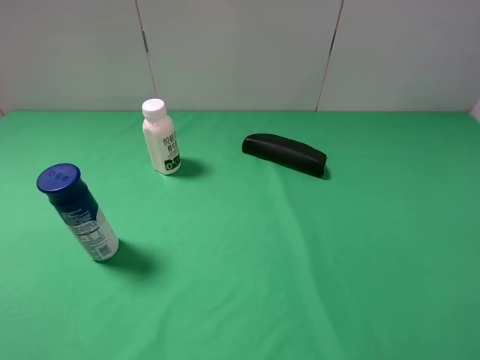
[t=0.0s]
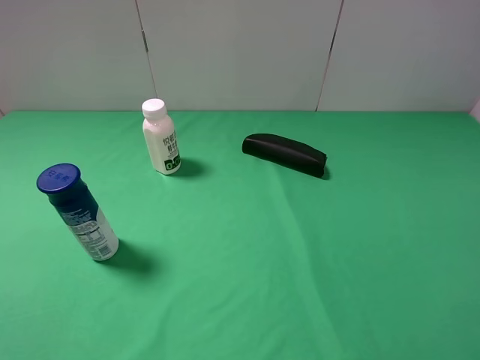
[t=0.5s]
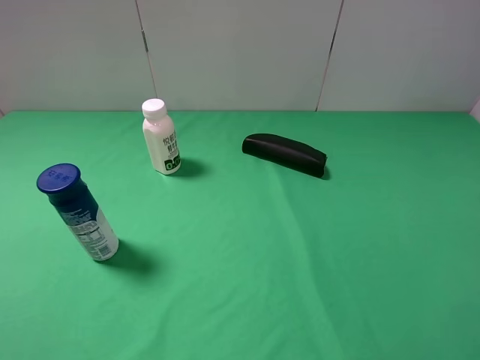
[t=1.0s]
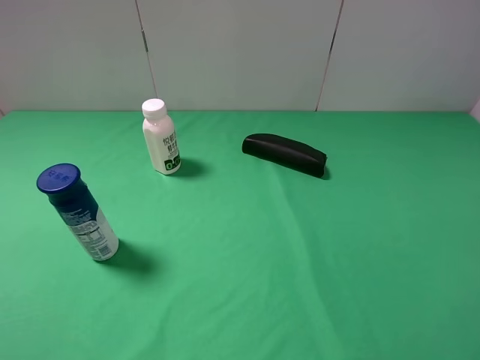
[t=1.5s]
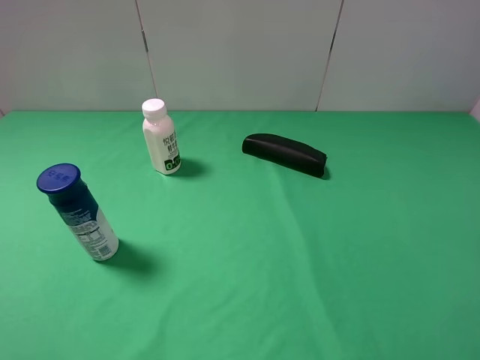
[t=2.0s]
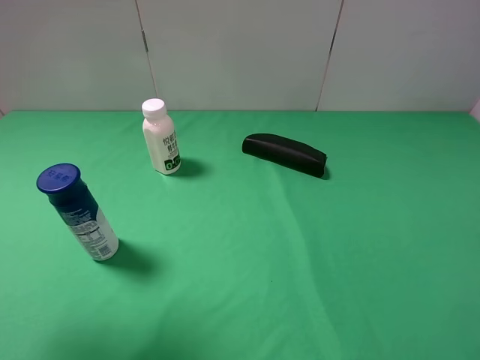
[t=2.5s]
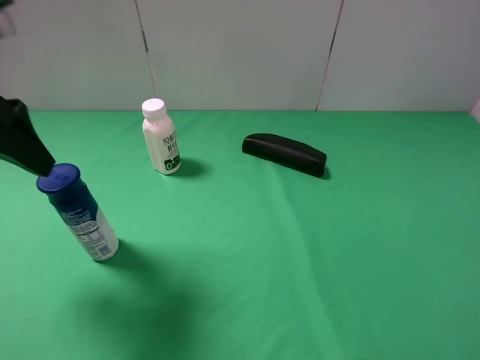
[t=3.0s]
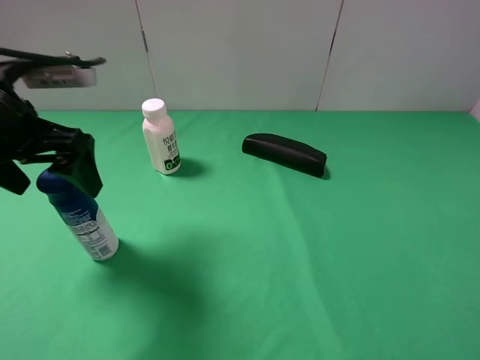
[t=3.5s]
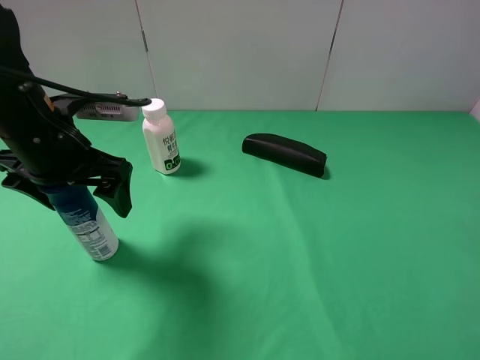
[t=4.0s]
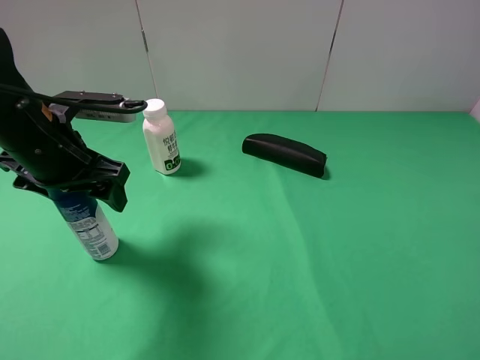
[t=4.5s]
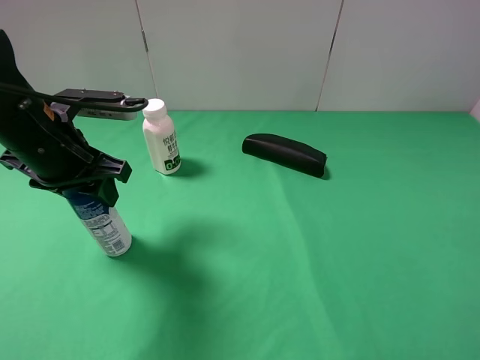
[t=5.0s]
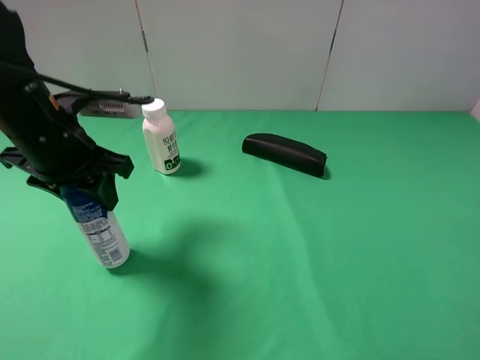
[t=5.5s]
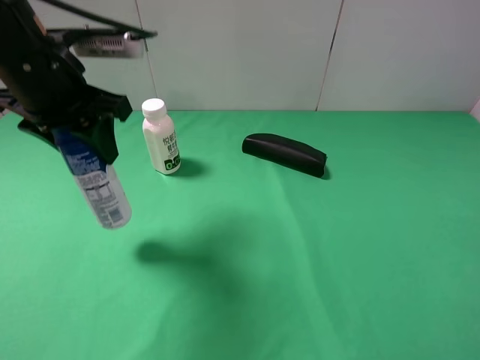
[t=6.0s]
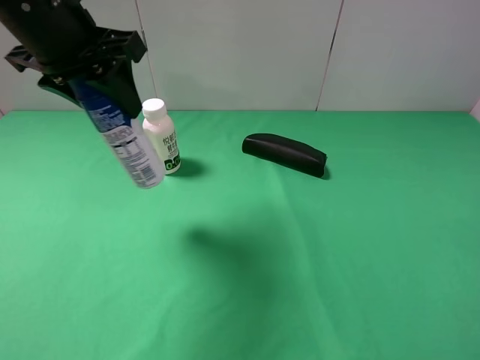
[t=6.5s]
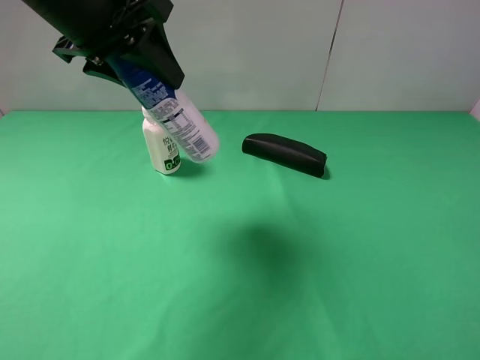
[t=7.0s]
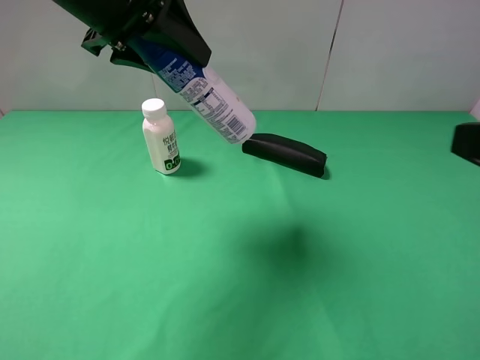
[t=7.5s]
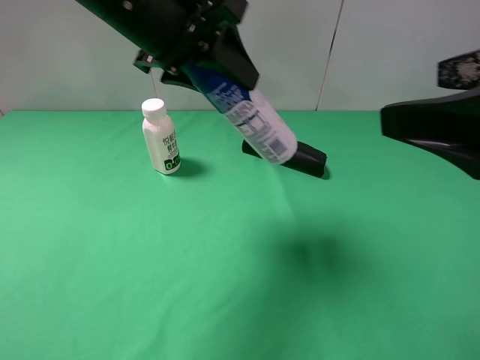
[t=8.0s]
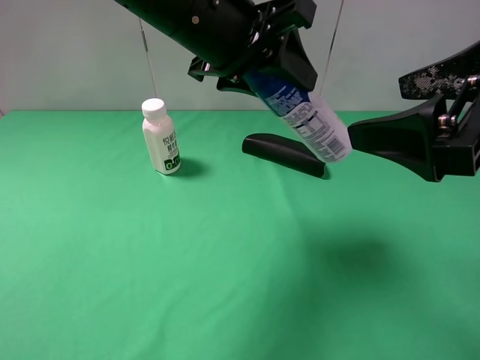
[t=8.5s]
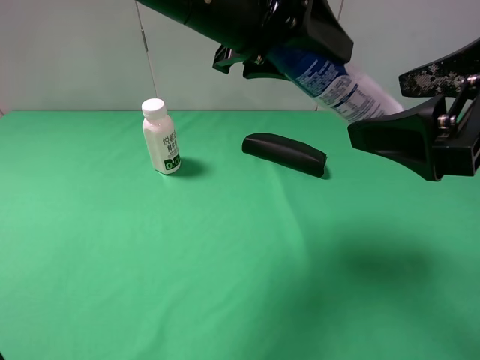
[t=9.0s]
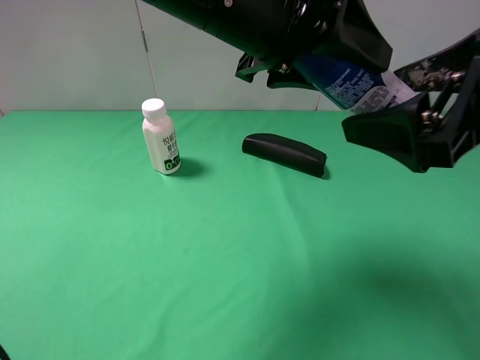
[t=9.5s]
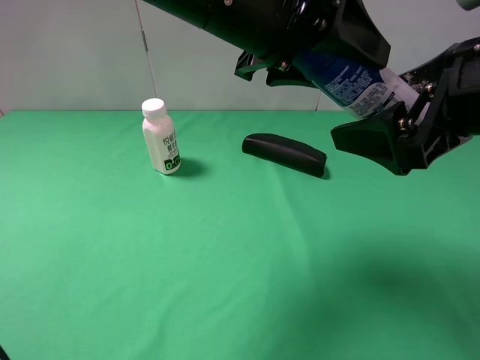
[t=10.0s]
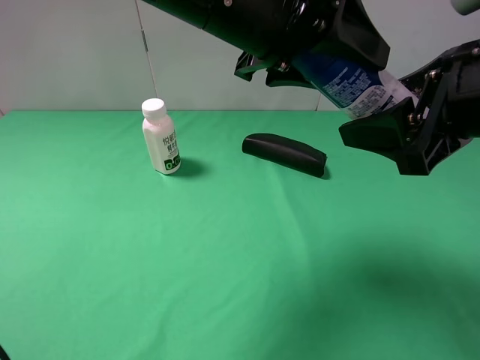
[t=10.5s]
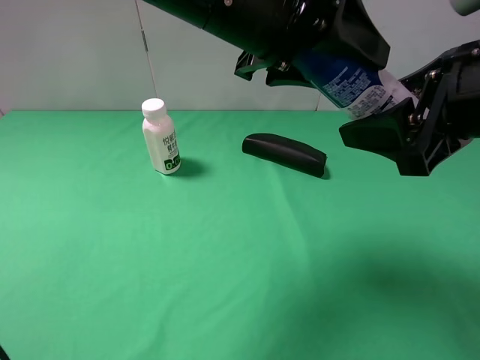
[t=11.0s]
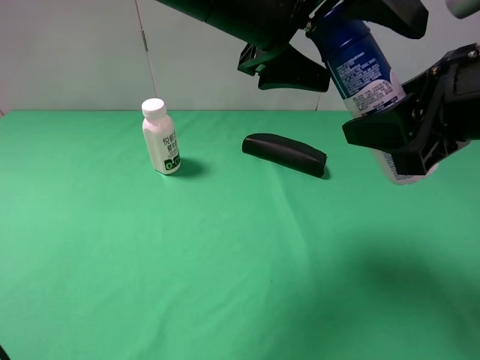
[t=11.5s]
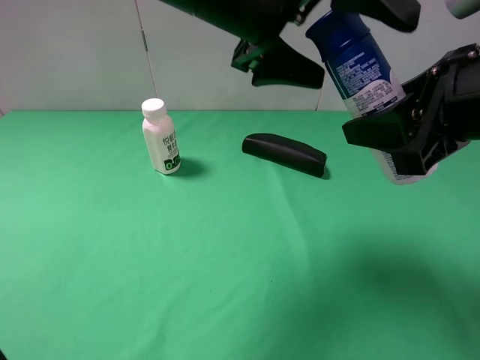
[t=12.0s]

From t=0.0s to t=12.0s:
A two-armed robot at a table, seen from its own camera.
Task of the whole recording: use the left gripper to pick up the item and transfer it from the left gripper to the right gripper.
Step, from t=0.0s to t=4.5s: Use the left gripper to grab the yogurt on the left side of the table.
Step, from t=5.0s to t=11.0s: Pass the yogurt to the right gripper.
From t=2.0s to t=4.0s: The left gripper travels forward, downward and to the right by roughly 25 cm.
From t=4.0s to t=6.0s: The left gripper travels upward by about 5 cm, and closes its fingers.
From t=6.0s to t=8.0s: The right gripper moves forward, to the left and upward, roughly 15 cm, while the left gripper travels to the right by roughly 10 cm.
From t=8.0s to t=10.0s: The right gripper shifts by roughly 5 cm. Meanwhile the left gripper is displaced to the right by roughly 5 cm.
From t=10.0s to t=12.0s: The right gripper closes its fingers. The left gripper opens its fingers.

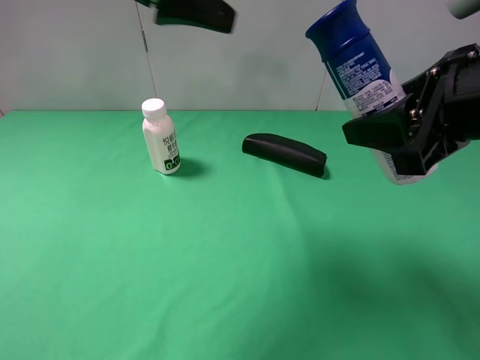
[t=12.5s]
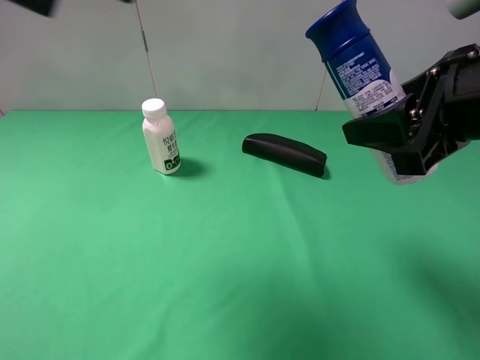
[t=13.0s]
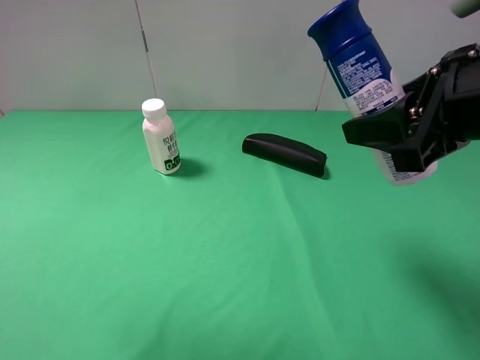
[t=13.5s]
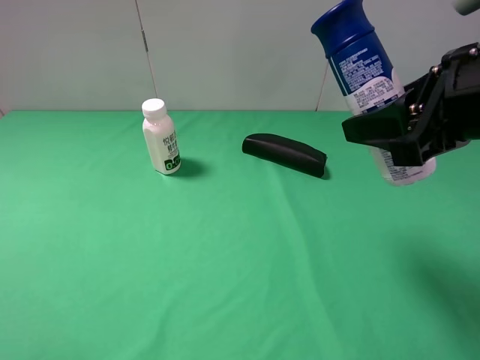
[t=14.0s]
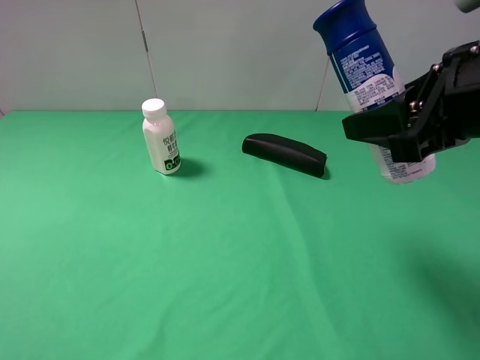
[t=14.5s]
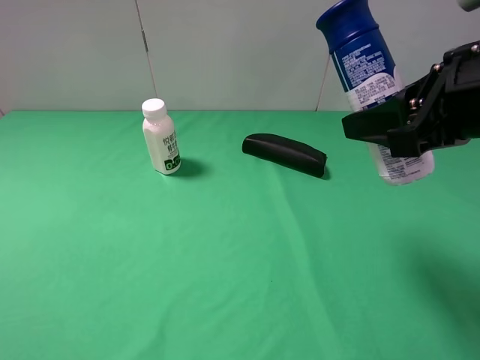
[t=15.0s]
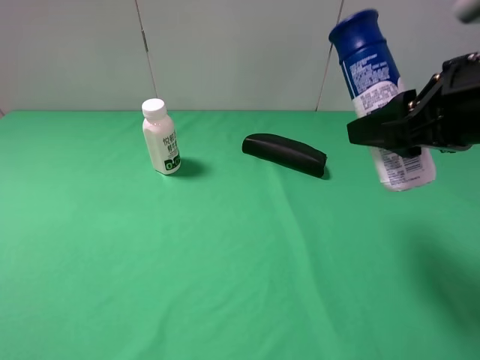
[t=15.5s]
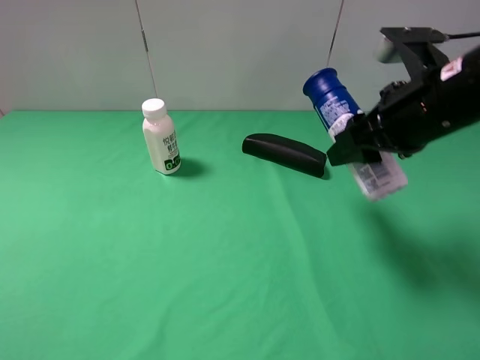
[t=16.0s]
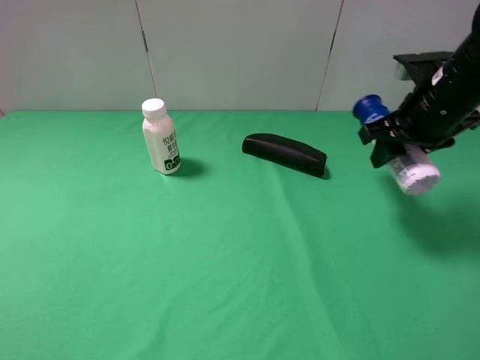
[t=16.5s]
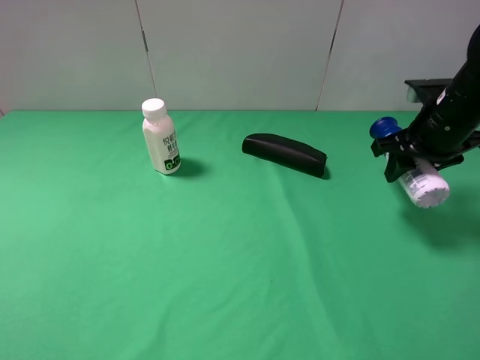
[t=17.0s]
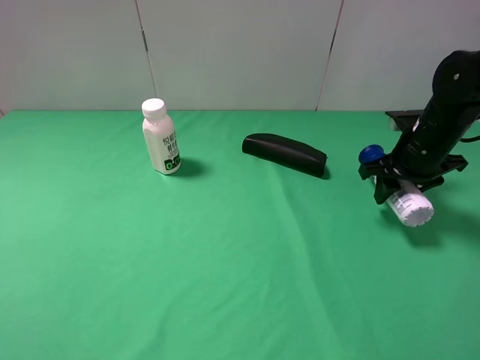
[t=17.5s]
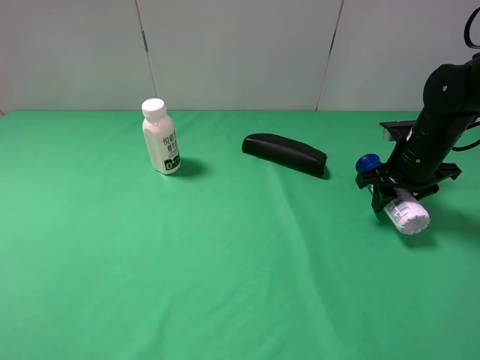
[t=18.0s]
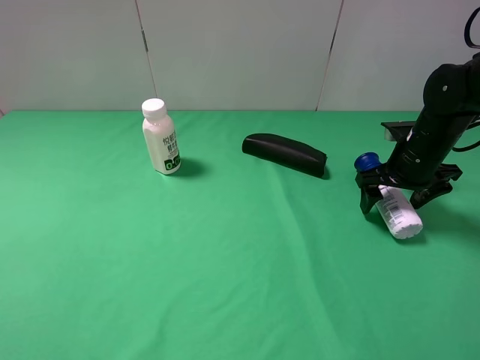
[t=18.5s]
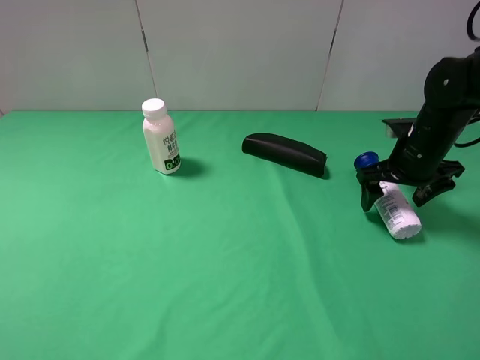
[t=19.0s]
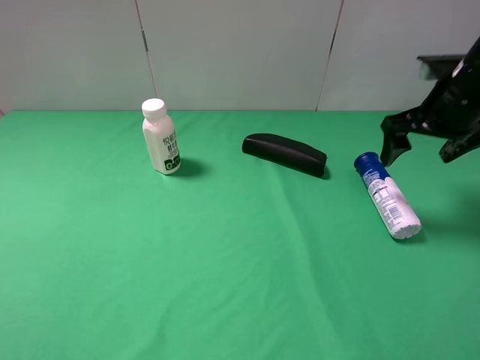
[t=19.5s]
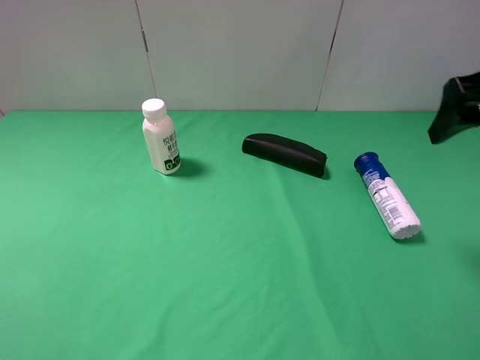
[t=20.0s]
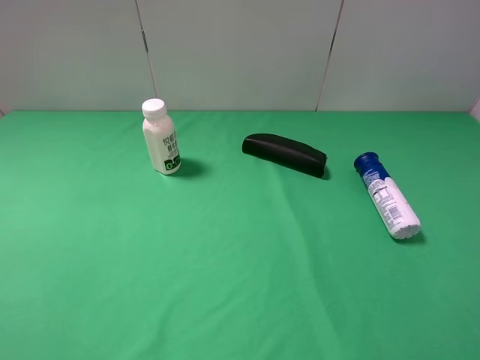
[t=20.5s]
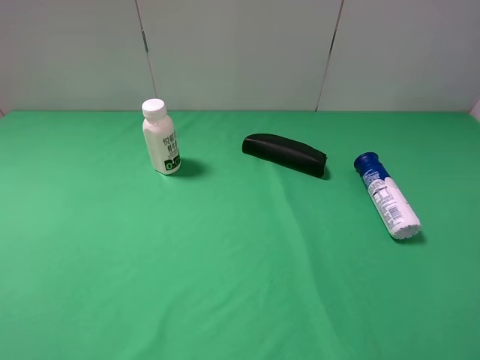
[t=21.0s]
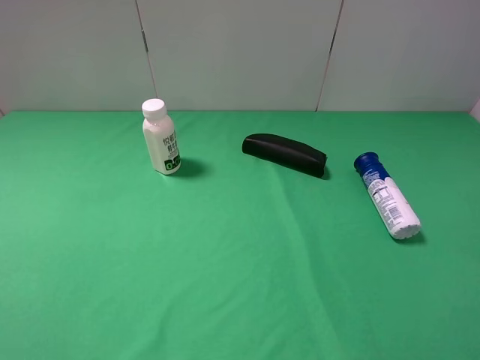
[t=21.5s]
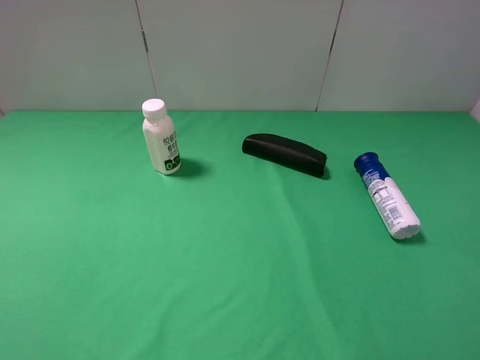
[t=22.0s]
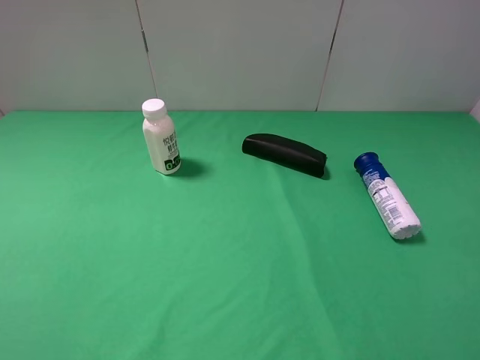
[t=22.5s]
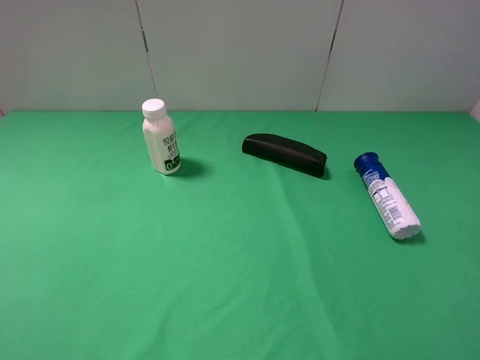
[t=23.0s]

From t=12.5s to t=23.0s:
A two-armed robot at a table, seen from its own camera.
Task of the whole recording: use the left gripper to pick up the item and transfer it from the left gripper to the right gripper.
Step, from t=12.5s to t=18.5s: The right gripper places yogurt on the right side of the table.
From t=12.5s to t=14.5s: The left gripper moves backward, to the left and downward, roughly 35 cm.
From t=14.5s to t=16.5s: The right gripper is displaced forward and downward by about 15 cm.
From t=16.5s to t=19.0s: The right gripper travels downward by roughly 10 cm, and opens its fingers.
From t=19.0s to t=21.0s: The right gripper heads backward, covering approximately 35 cm.
